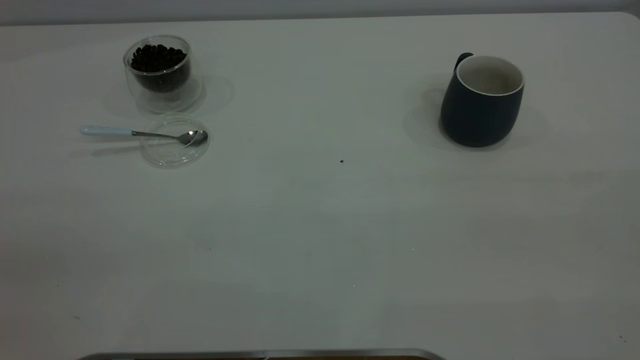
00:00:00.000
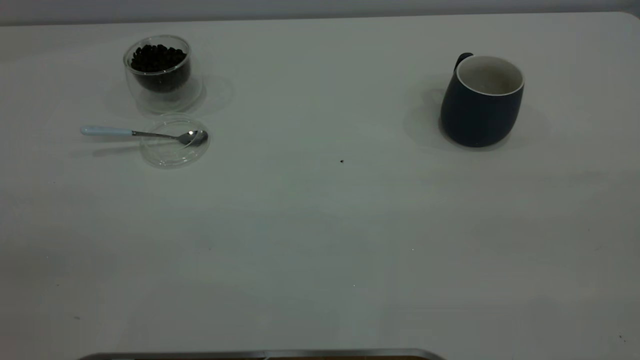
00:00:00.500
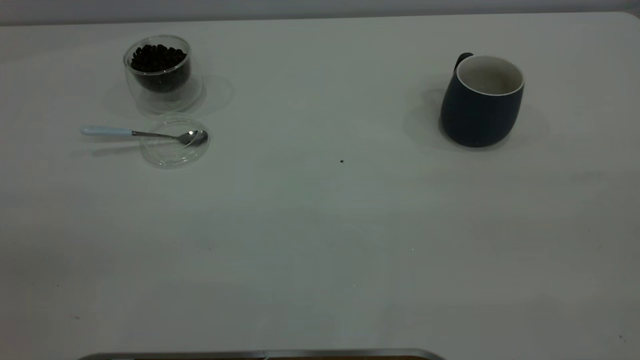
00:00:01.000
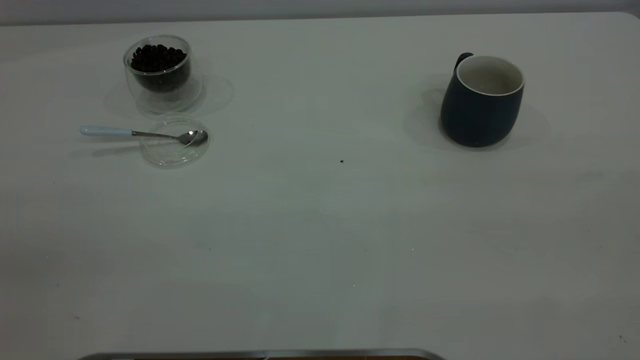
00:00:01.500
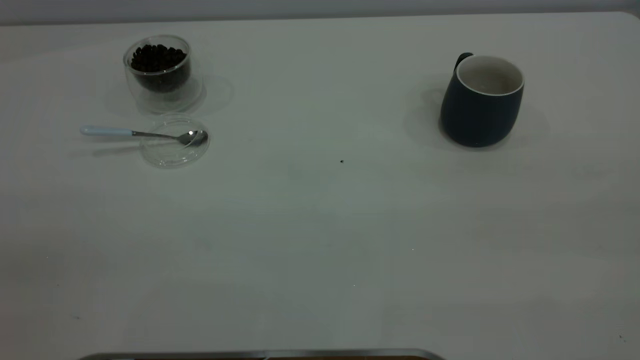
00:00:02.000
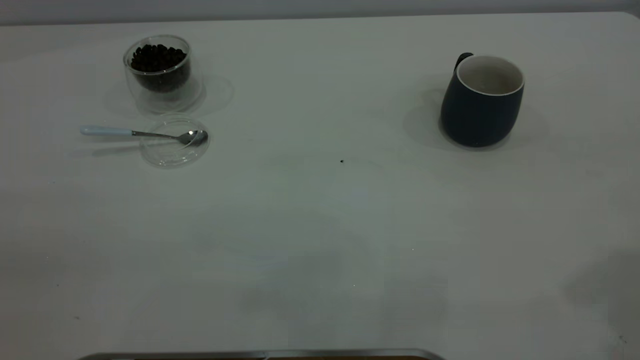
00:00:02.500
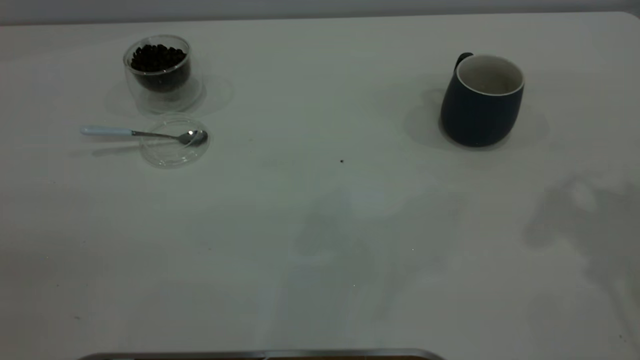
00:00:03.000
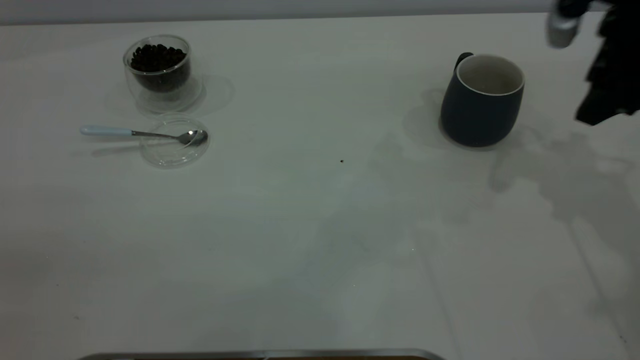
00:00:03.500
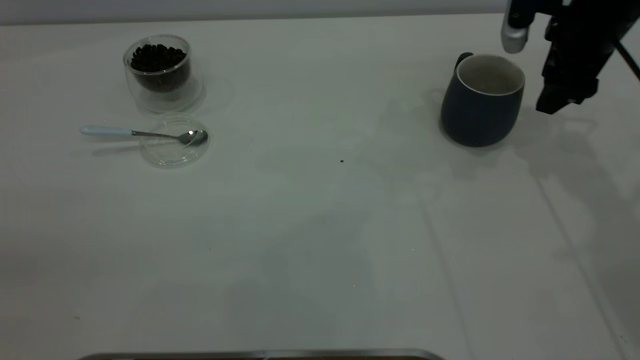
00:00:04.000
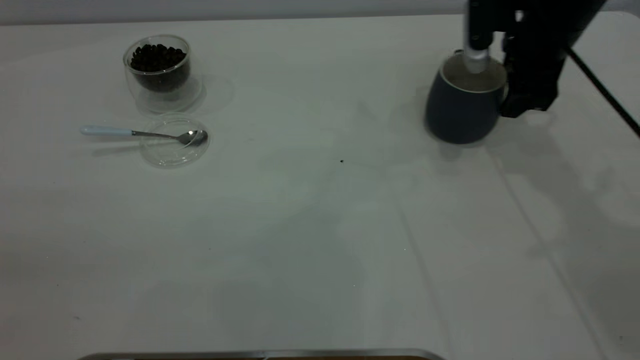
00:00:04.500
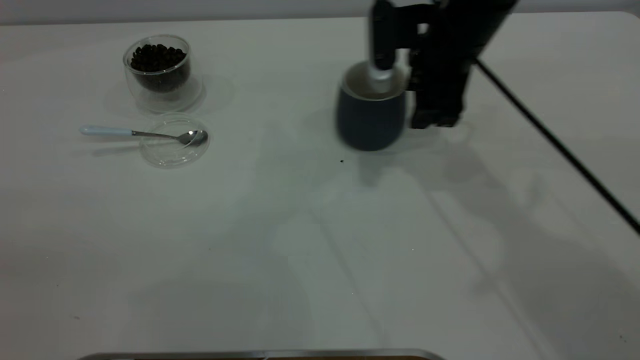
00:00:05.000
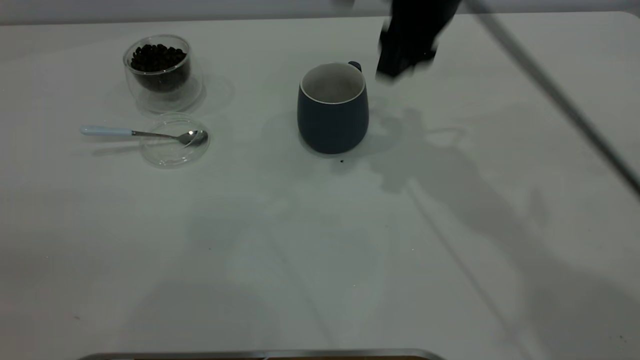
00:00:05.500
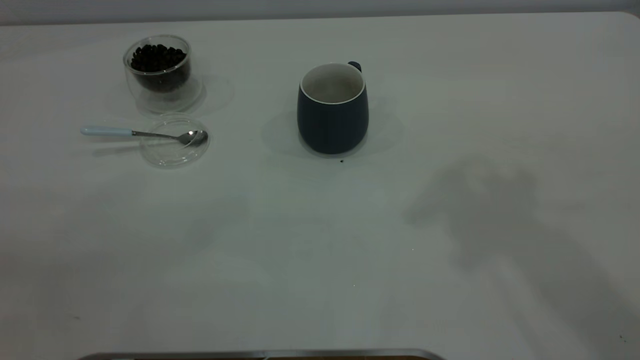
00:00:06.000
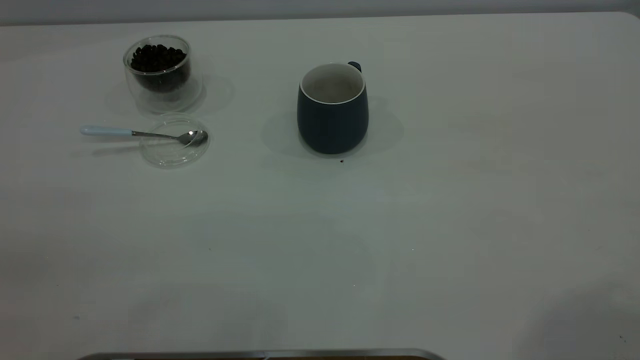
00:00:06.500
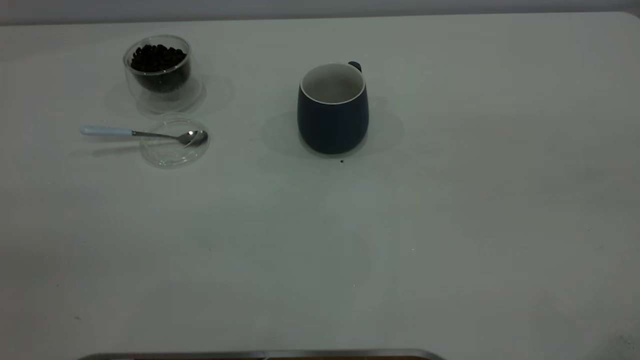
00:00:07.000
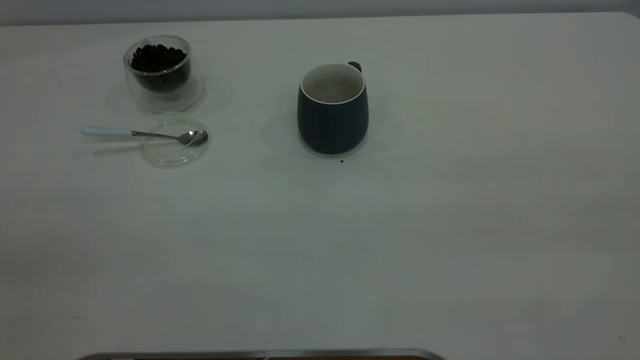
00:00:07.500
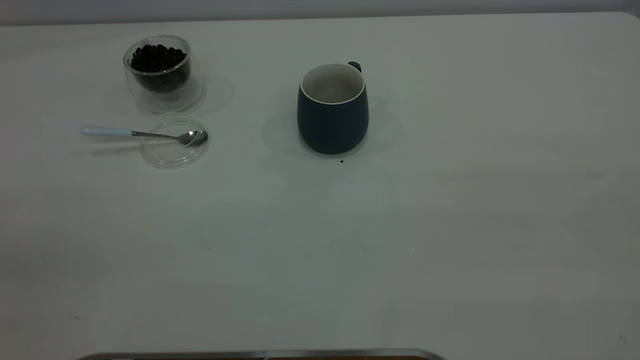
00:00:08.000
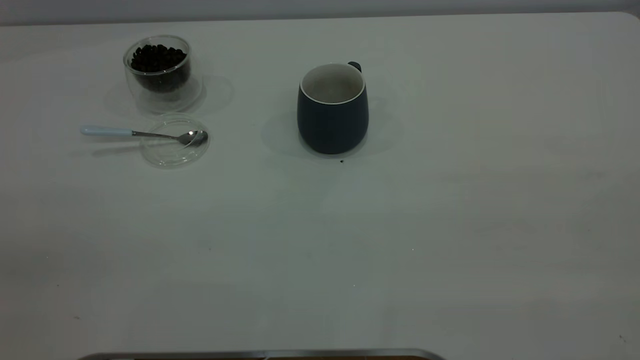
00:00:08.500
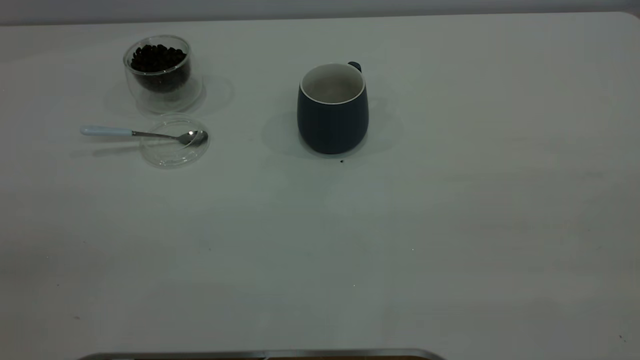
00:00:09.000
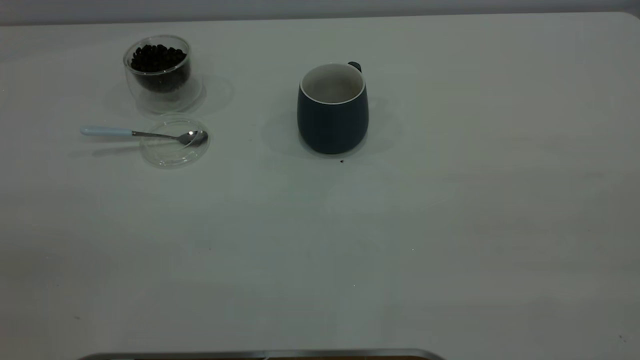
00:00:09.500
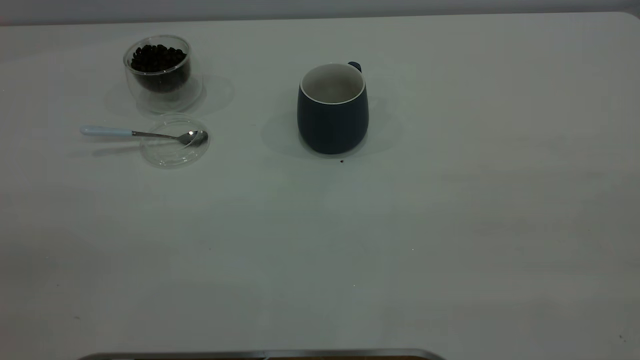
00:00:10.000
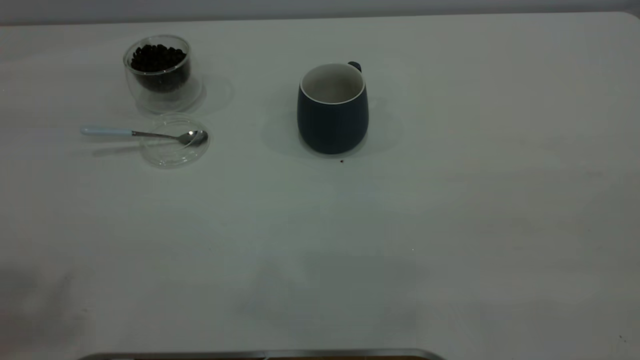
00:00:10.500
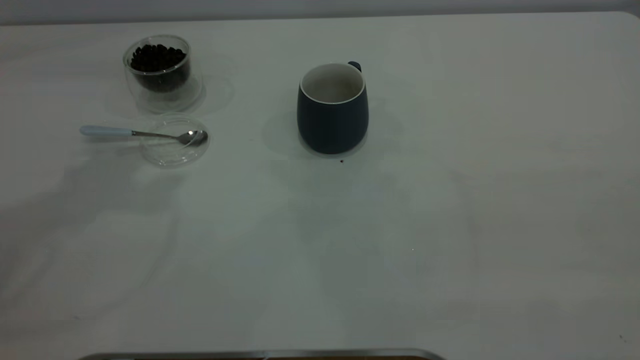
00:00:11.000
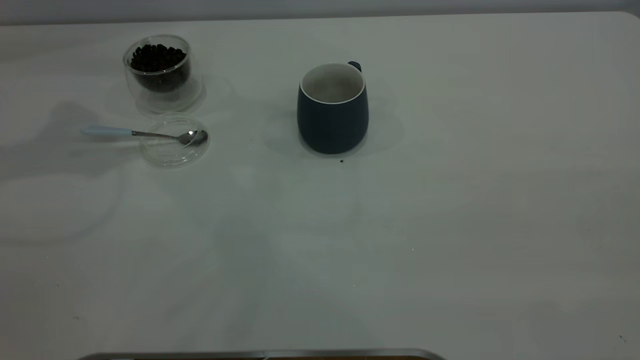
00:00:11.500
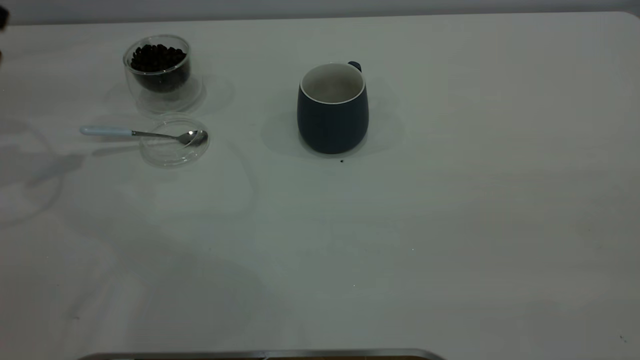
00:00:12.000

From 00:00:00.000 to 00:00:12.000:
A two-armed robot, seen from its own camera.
Task of the whole recording: the right gripper place the grey cup in the center of the table, the left gripper take the blue spoon from the cup lid and scoop out the coffee beans from the coffee cup and put them into the grey cup, the left gripper put the spoon back into the cup lid.
Step, from 00:00:00.000 to 00:00:05.000: Move the cup to the center of view.
From 00:00:02.000 to 00:00:04.000: The right gripper goes roughly 50 cm forward and downward.
From 00:00:04.000 to 00:00:06.000: The right gripper goes roughly 35 cm upward and backward.
From 00:00:08.000 to 00:00:10.000: The two grippers keep their place.

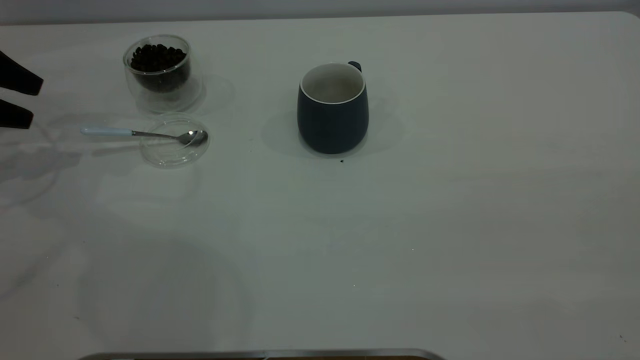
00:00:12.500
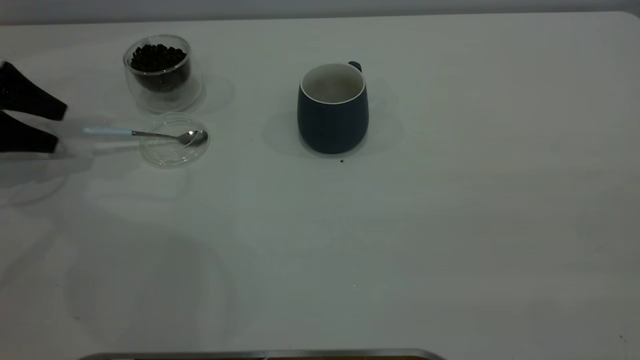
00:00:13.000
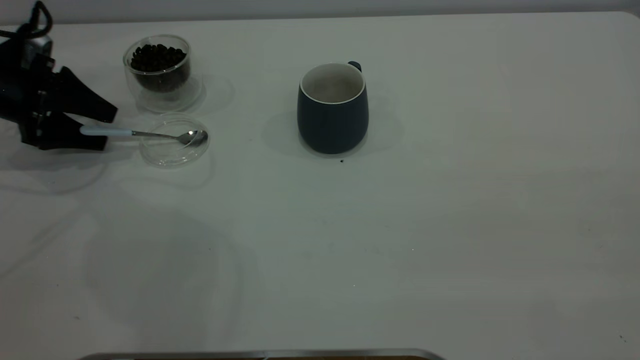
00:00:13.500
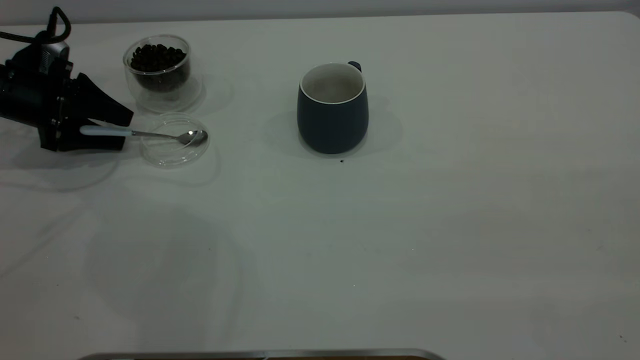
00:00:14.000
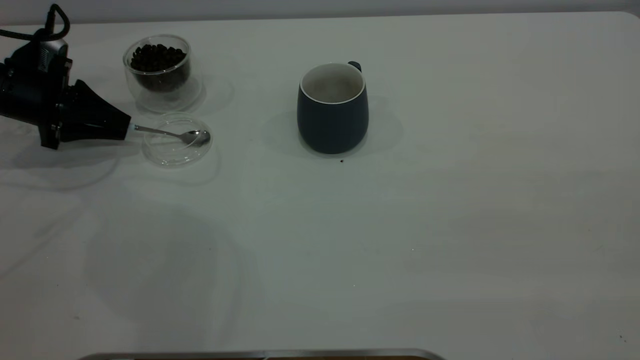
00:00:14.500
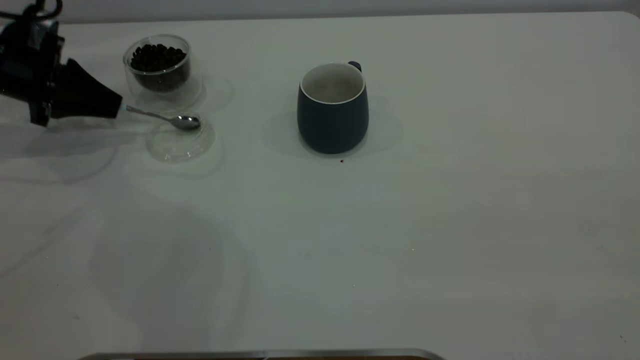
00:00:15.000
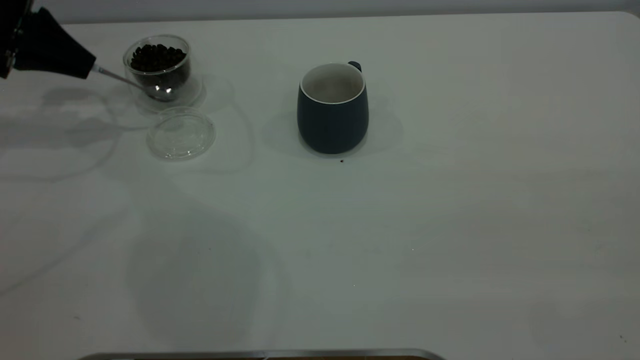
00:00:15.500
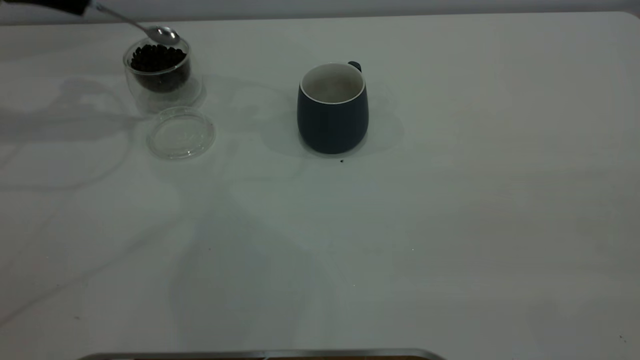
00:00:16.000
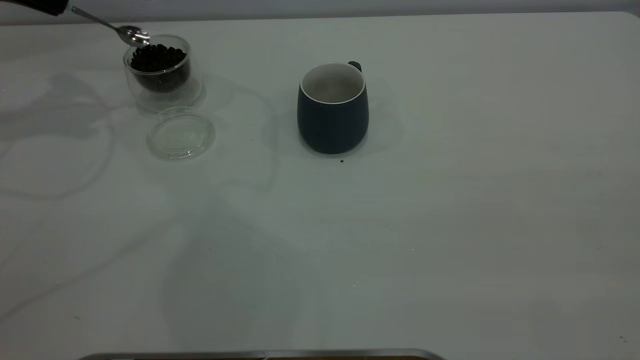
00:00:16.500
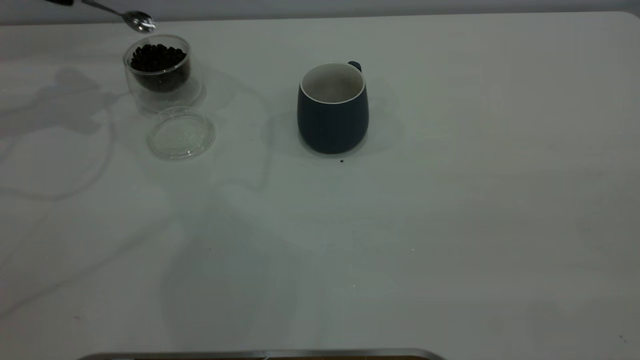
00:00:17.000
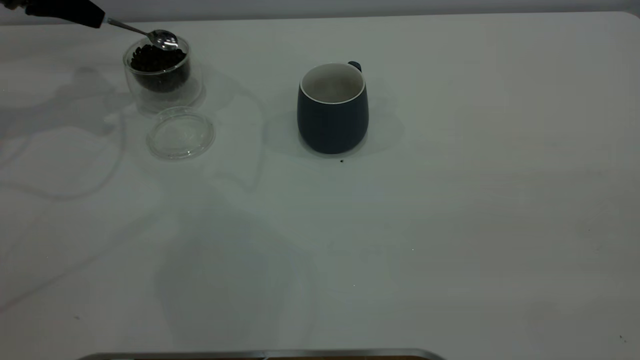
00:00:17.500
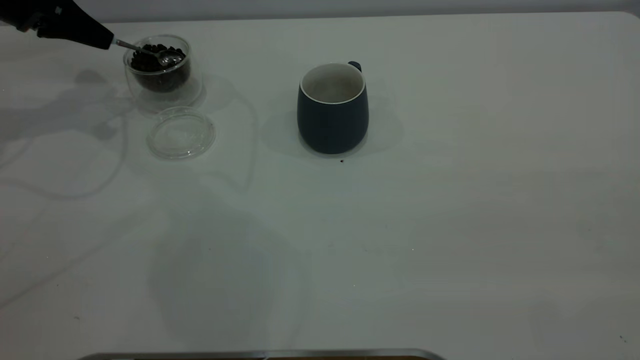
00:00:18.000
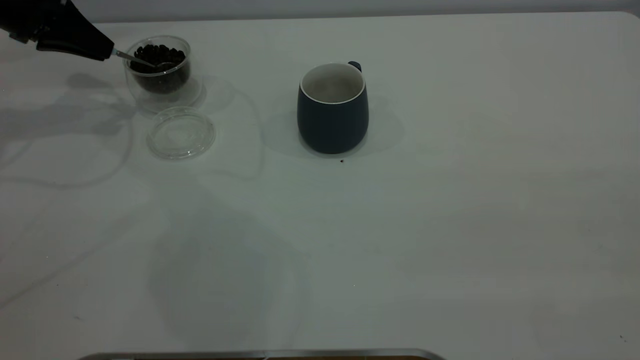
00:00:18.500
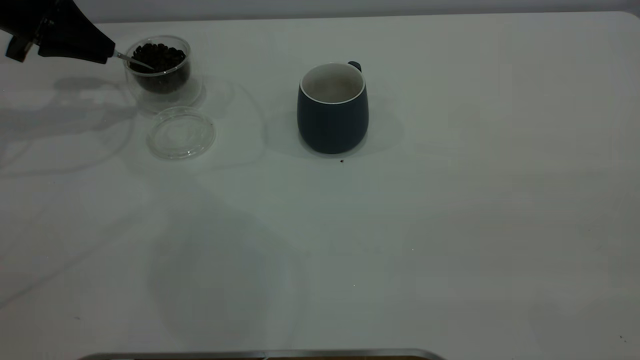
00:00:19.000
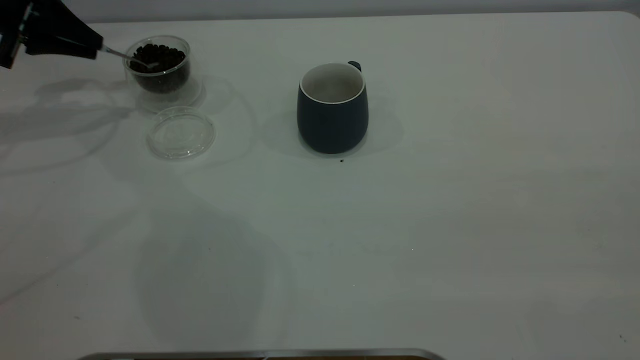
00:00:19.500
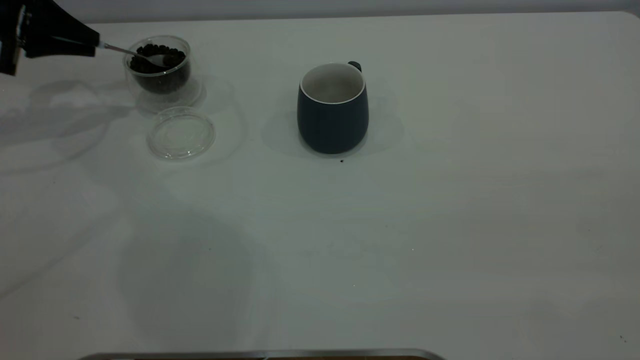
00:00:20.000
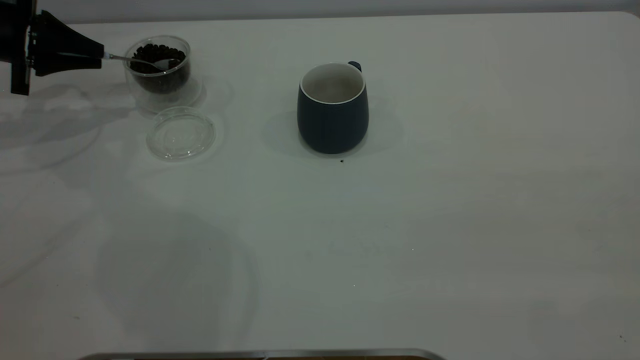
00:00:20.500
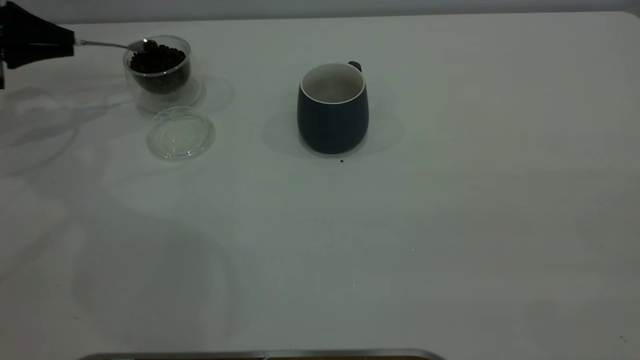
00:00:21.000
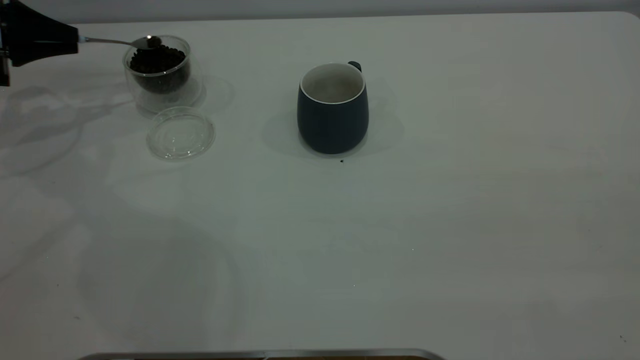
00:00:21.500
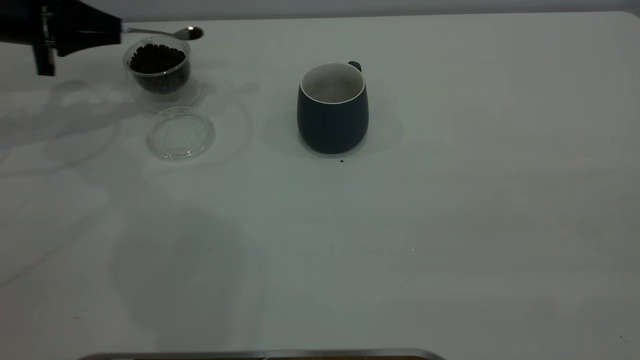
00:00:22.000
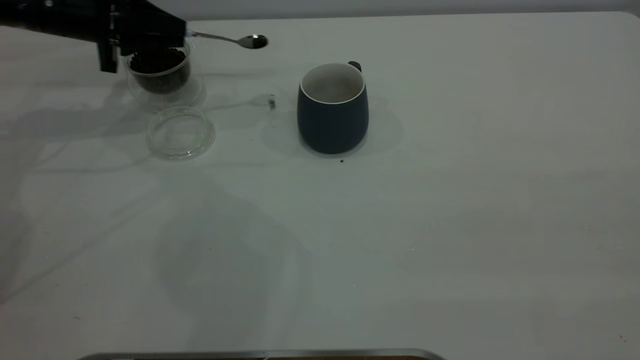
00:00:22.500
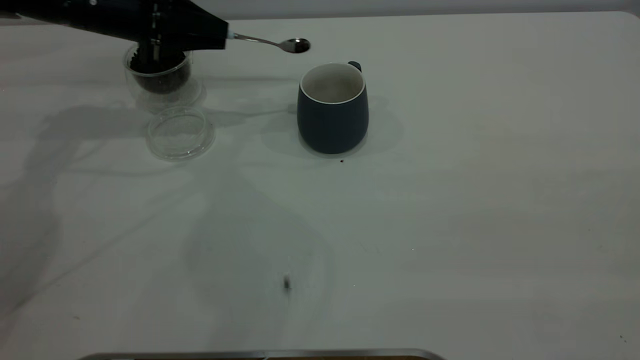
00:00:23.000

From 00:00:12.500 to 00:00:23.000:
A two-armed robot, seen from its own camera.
Task of the whole recording: the right gripper place the grey cup in the center of the table, the left gripper take the blue spoon from the cup lid and scoop out the coffee beans from the coffee cup and put them into the grey cup, the left gripper put the spoon back into the cup lid.
Step, from 00:00:12.500 to 00:00:15.500: Pick up the spoon.
From 00:00:12.500 to 00:00:14.500: The left gripper travels to the right and downward by some 10 cm, and closes.
From 00:00:14.500 to 00:00:16.500: The left gripper is displaced upward by roughly 15 cm.
From 00:00:16.500 to 00:00:19.000: The left gripper heads downward, covering about 5 cm.
From 00:00:19.000 to 00:00:21.000: The left gripper moves to the left, approximately 5 cm.
From 00:00:21.000 to 00:00:23.000: The left gripper shifts about 20 cm to the right.
